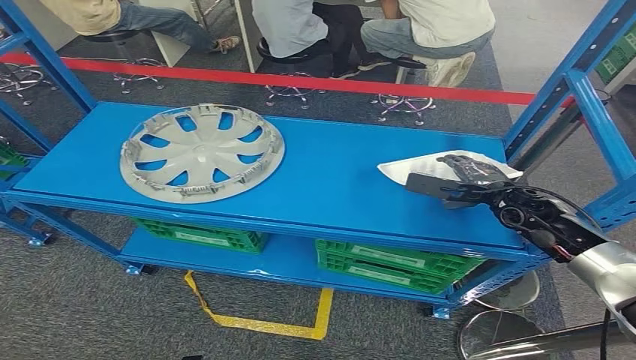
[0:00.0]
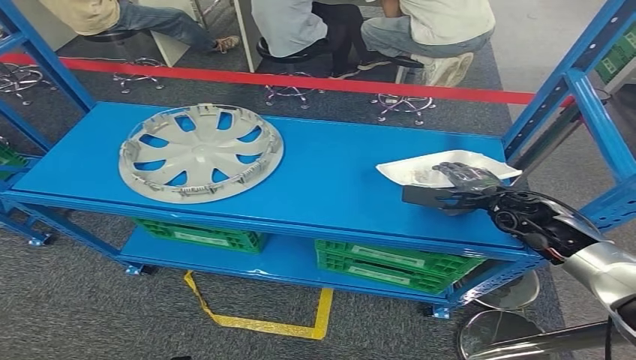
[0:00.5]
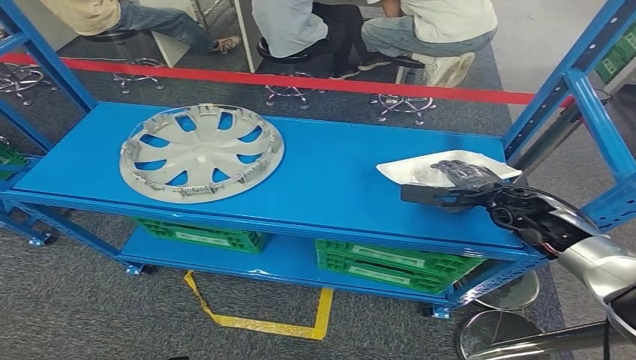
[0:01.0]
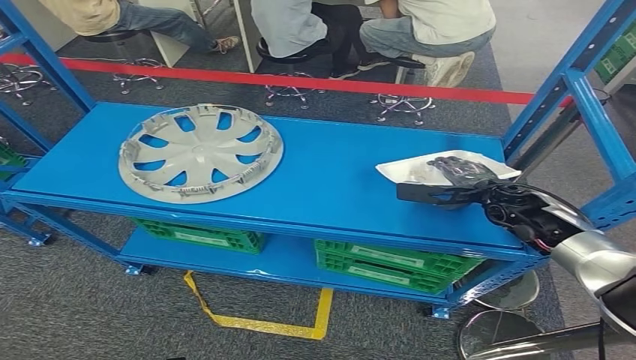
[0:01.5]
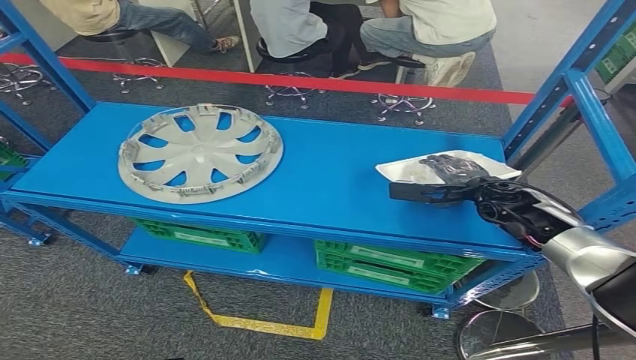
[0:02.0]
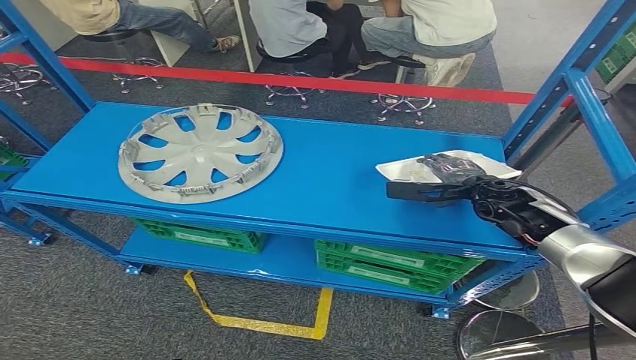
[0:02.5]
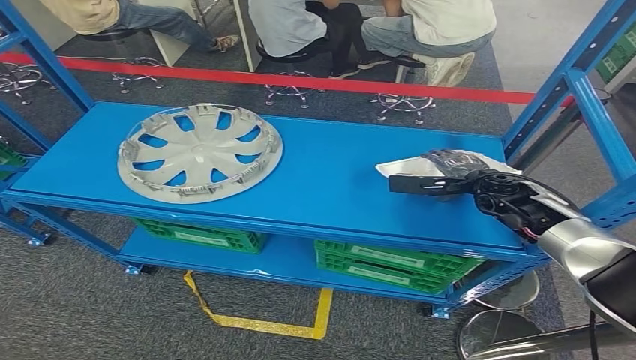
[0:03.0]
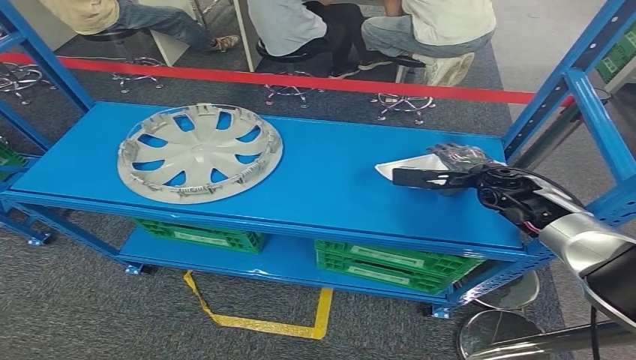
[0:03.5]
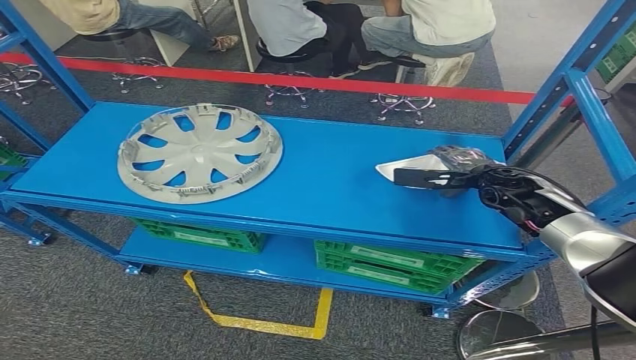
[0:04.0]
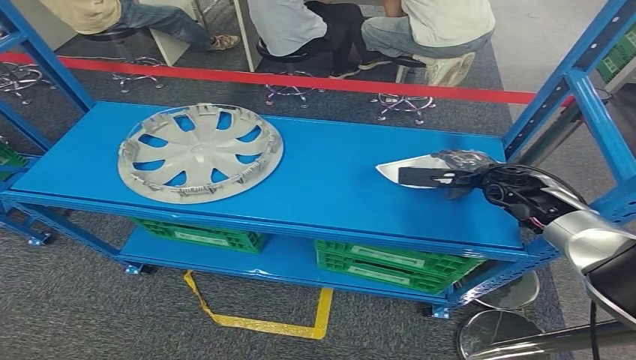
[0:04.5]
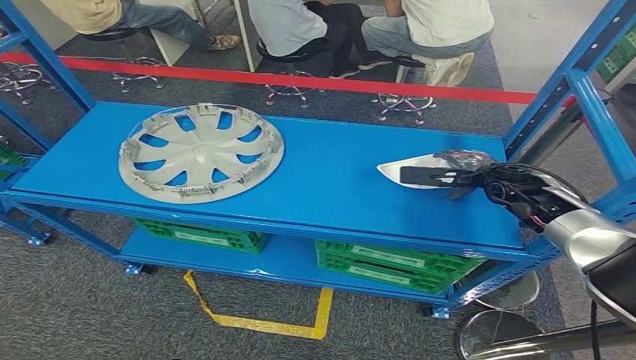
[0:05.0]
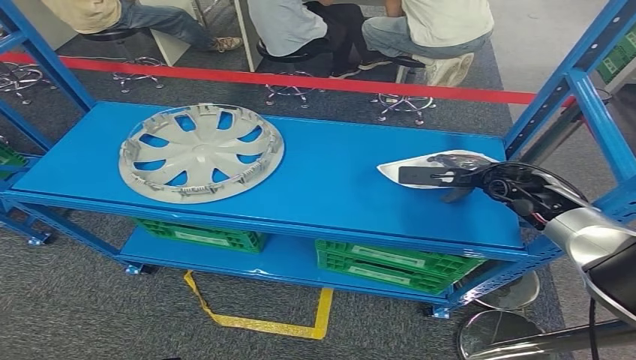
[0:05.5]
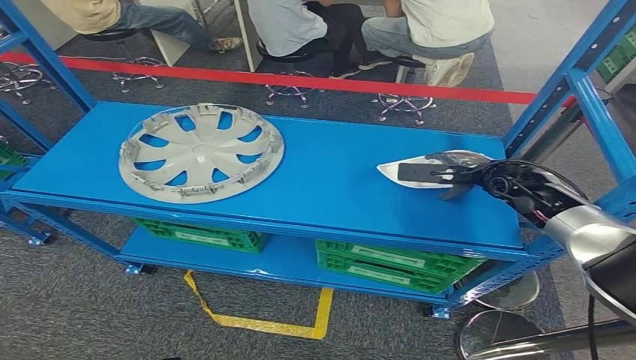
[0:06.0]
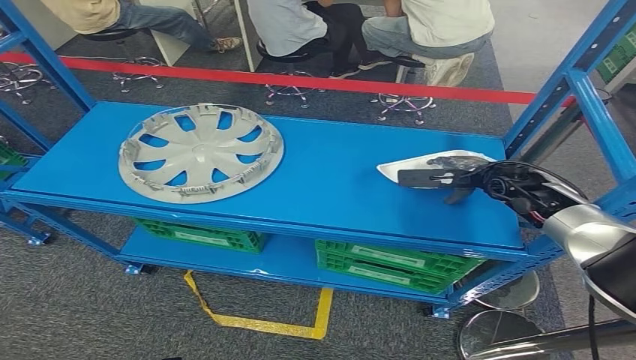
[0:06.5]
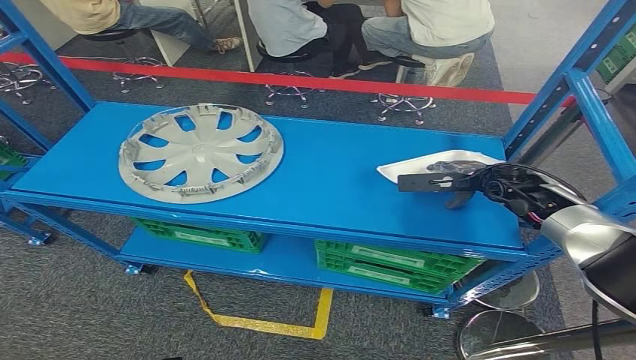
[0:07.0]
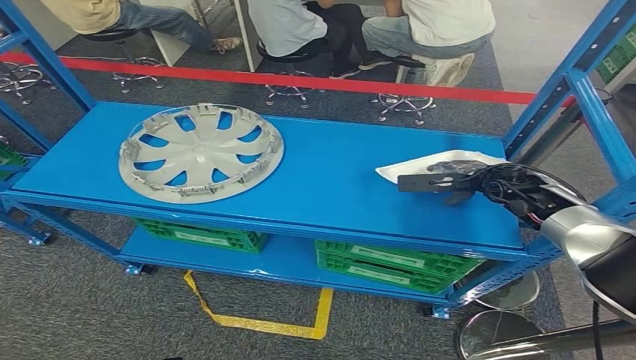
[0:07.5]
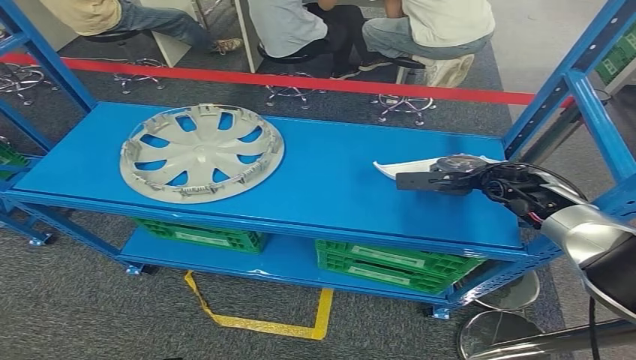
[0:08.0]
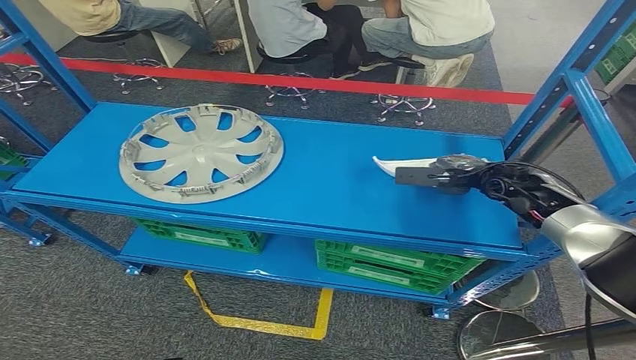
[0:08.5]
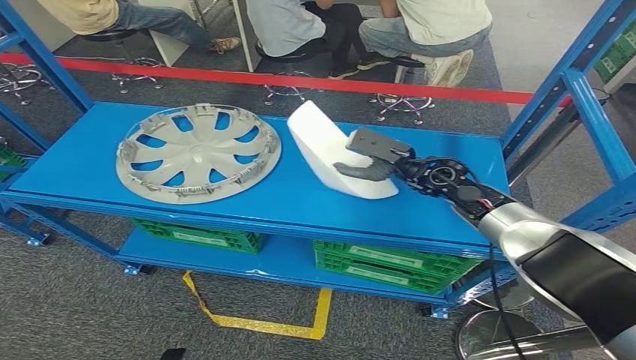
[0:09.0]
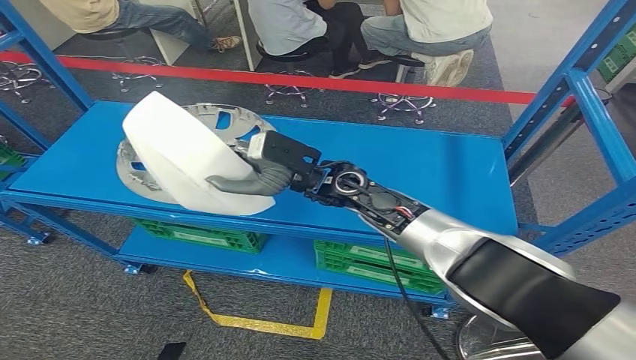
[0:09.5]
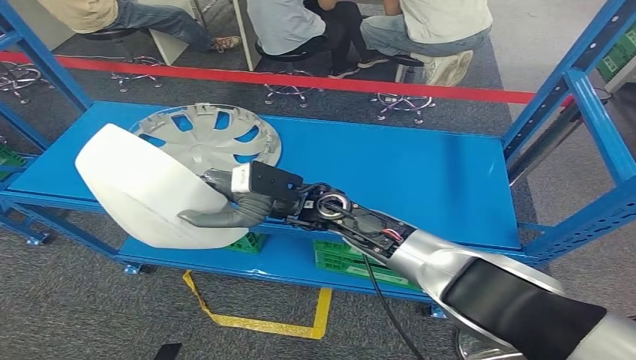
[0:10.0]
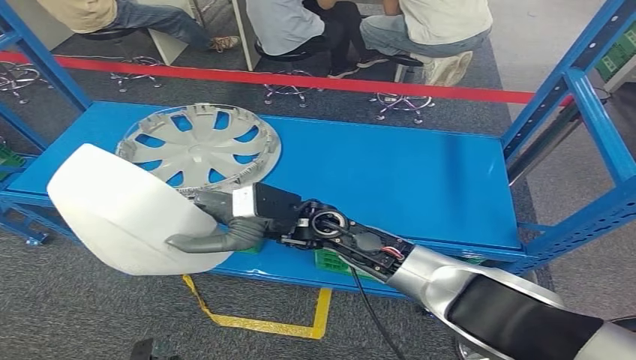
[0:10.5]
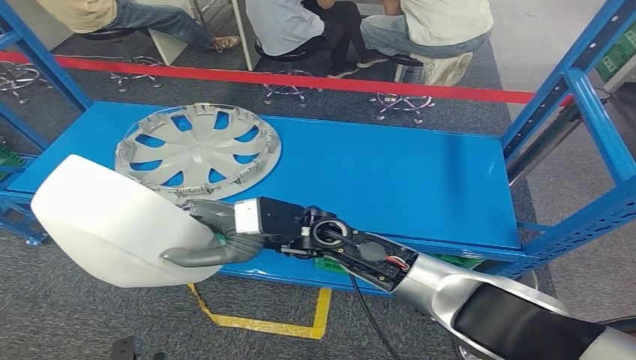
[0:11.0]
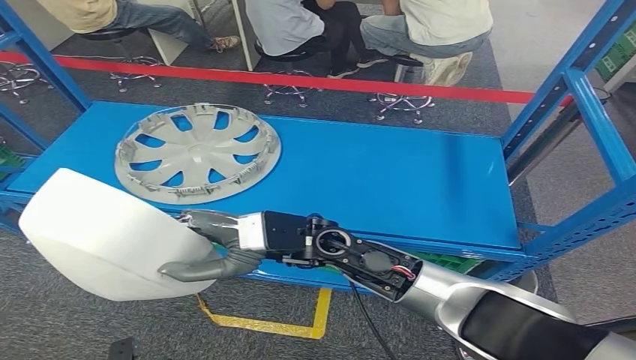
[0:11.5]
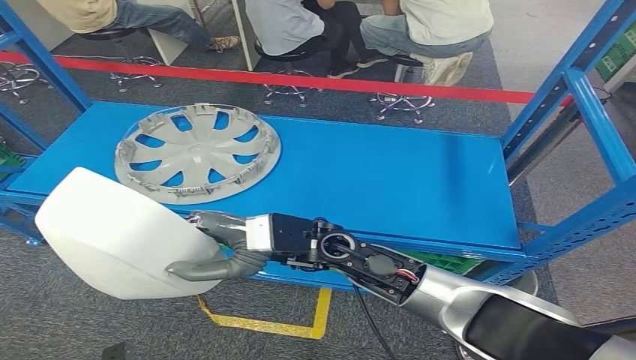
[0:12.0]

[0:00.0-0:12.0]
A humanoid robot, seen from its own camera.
Step, 0.0 to 11.5 s: Pick up the small component from the shelf.
0.0 to 6.0 s: There are only small adjustments of the hands.
6.0 to 8.0 s: There are only small adjustments of the hands.

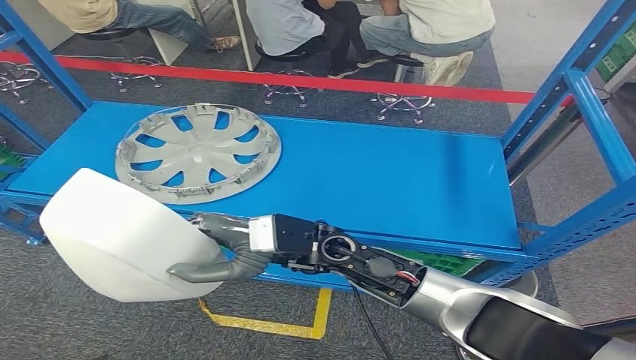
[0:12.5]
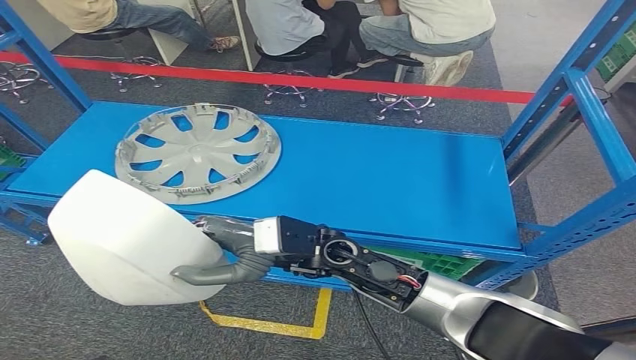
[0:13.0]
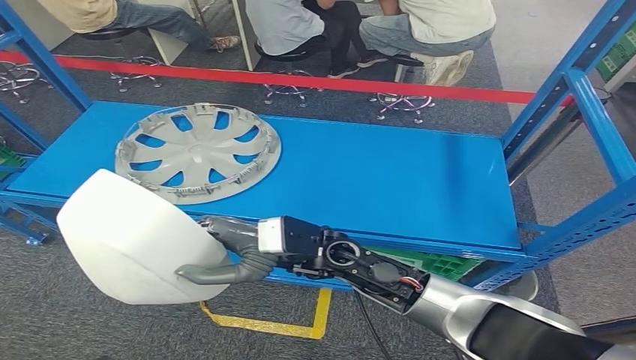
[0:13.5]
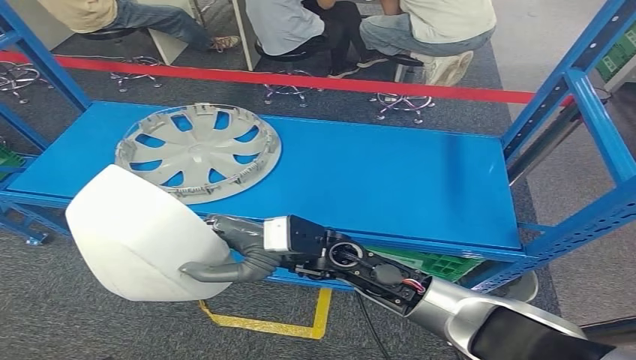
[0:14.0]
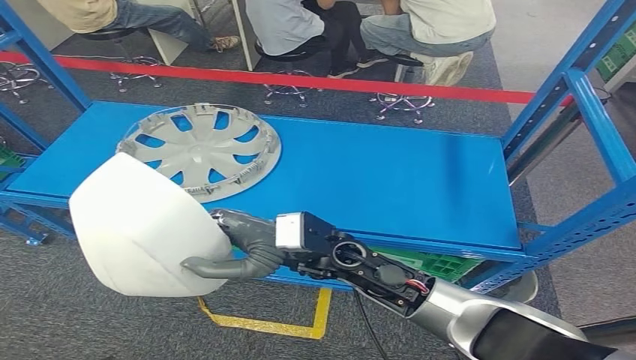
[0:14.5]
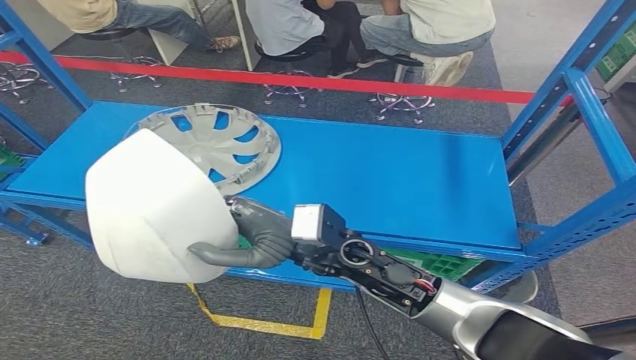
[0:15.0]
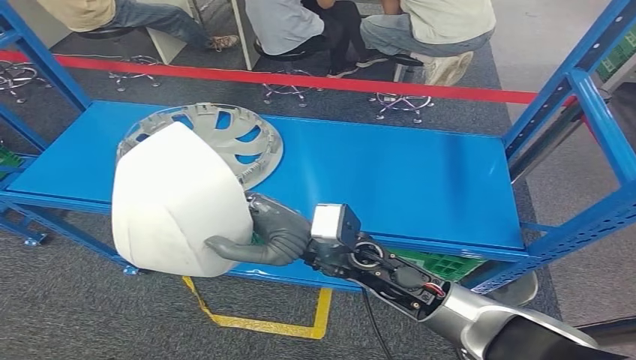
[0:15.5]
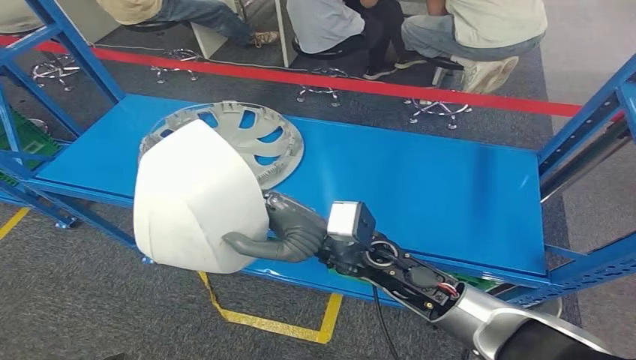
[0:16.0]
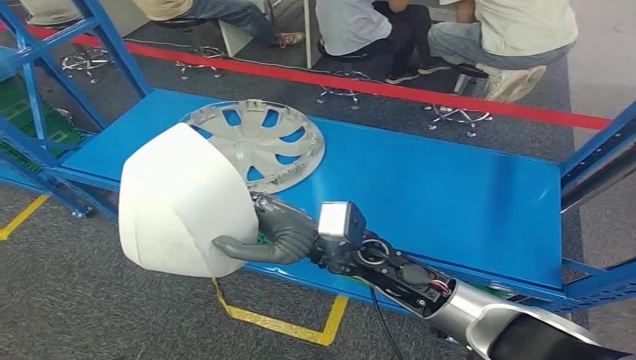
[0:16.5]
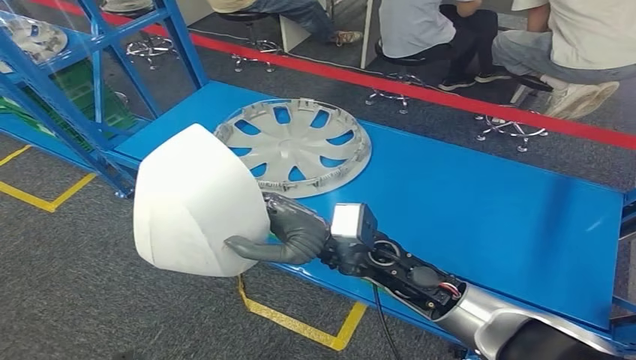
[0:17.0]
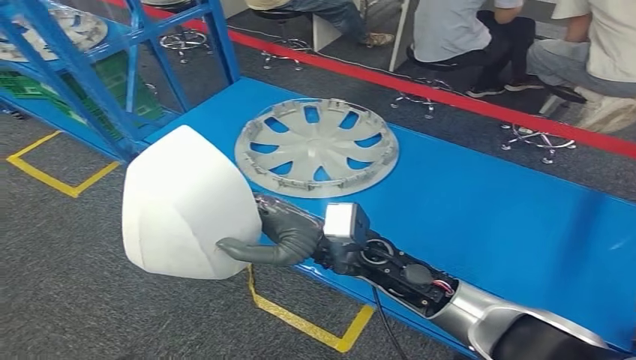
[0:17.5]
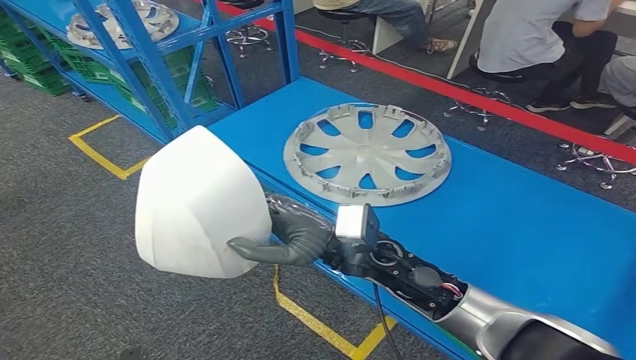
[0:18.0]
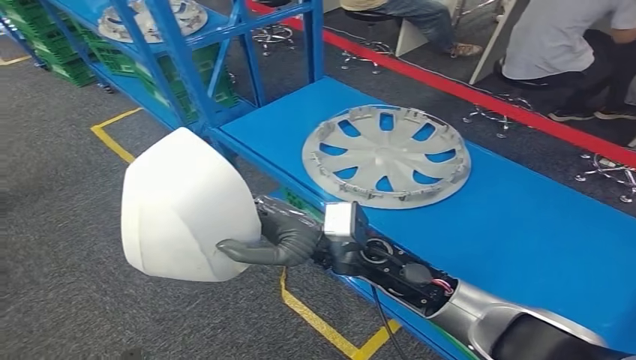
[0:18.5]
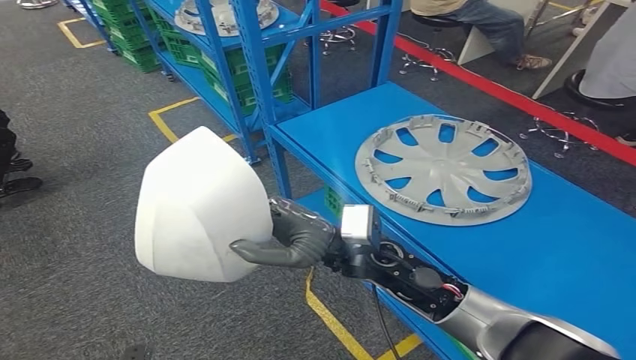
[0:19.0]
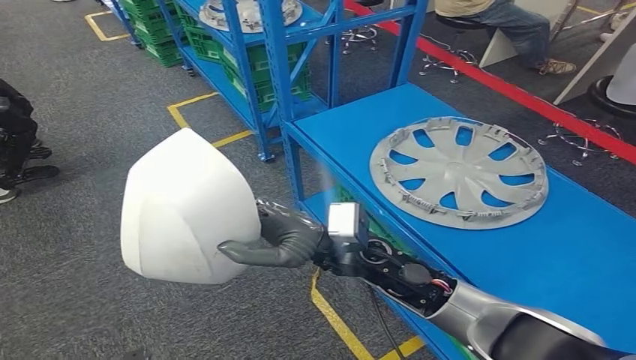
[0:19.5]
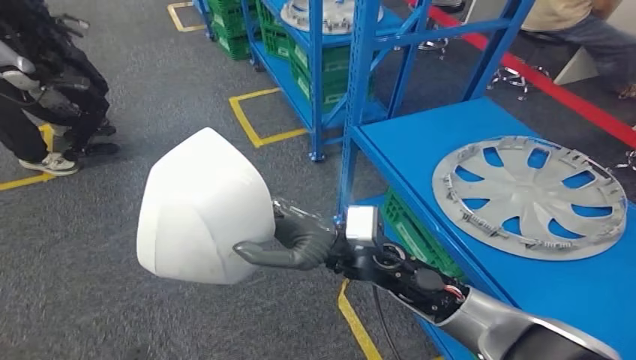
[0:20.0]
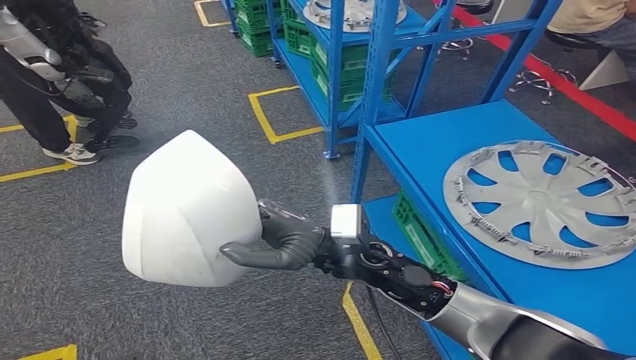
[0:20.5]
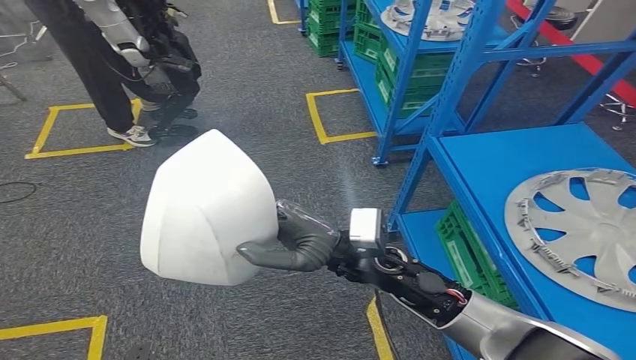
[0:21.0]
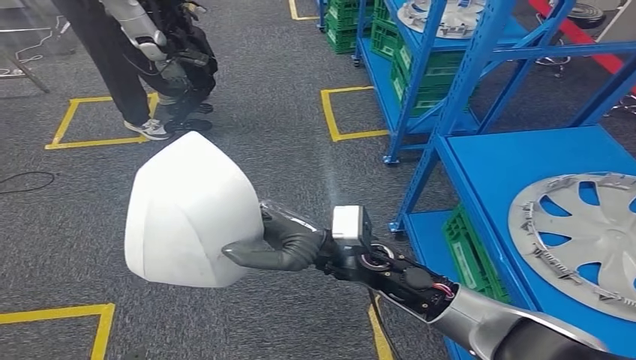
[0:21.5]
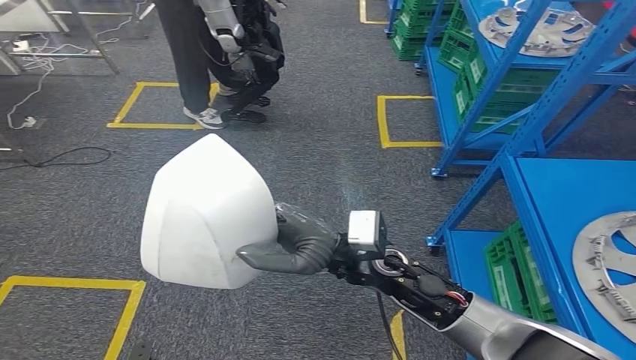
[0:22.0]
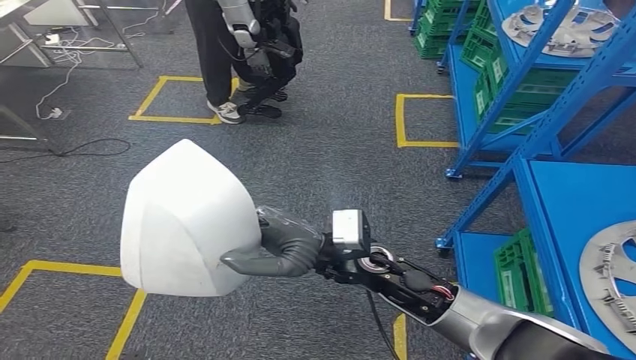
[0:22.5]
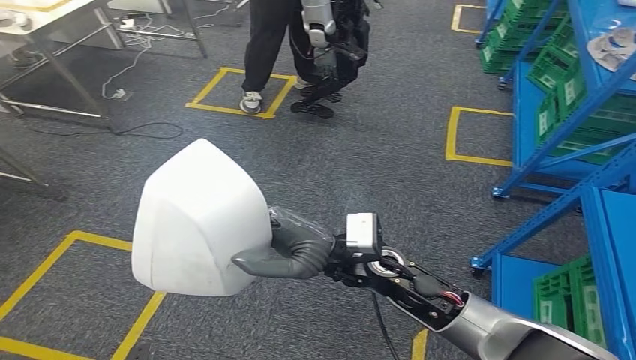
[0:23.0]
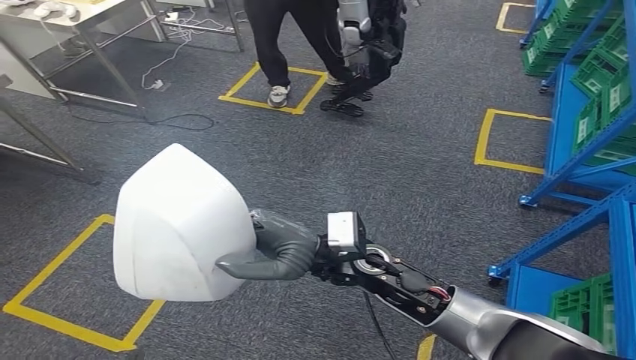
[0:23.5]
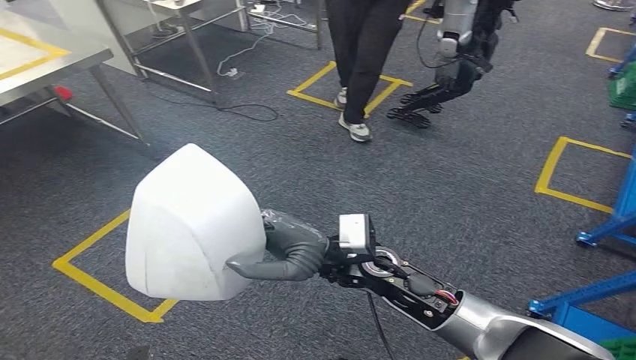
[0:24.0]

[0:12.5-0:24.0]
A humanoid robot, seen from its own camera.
12.5 to 14.5 s: The hands move only a little.
